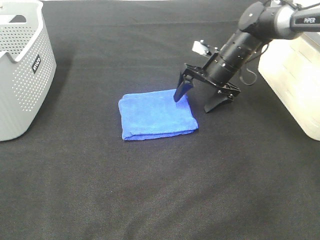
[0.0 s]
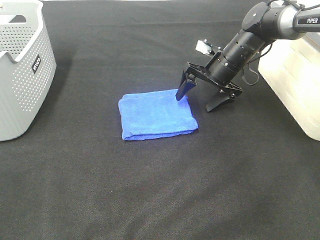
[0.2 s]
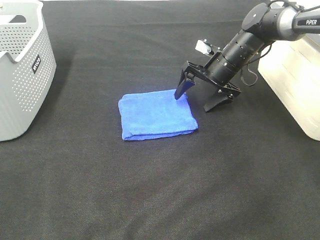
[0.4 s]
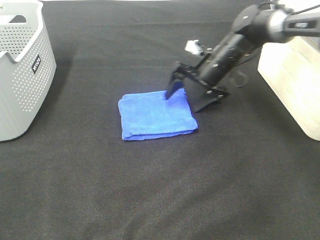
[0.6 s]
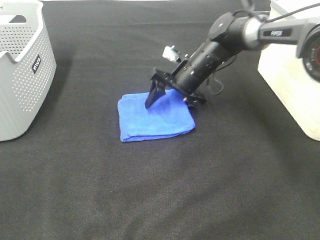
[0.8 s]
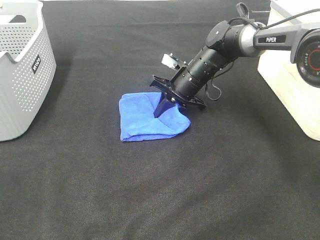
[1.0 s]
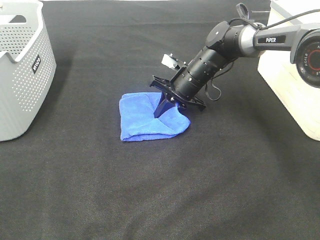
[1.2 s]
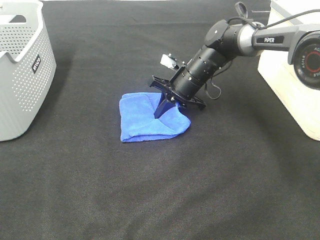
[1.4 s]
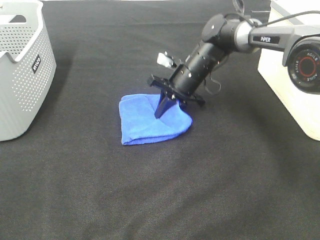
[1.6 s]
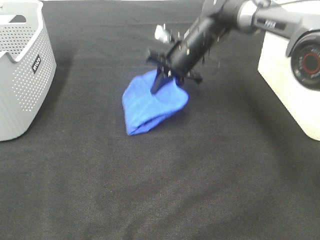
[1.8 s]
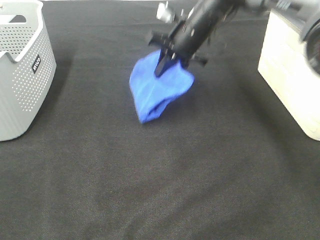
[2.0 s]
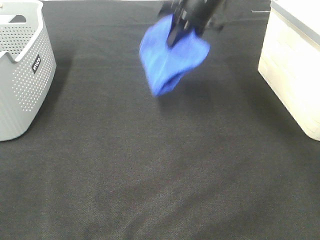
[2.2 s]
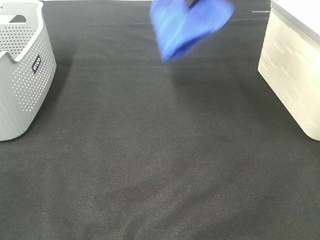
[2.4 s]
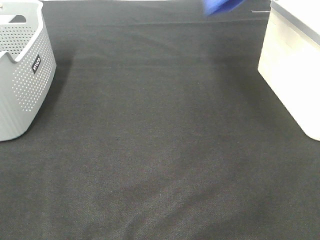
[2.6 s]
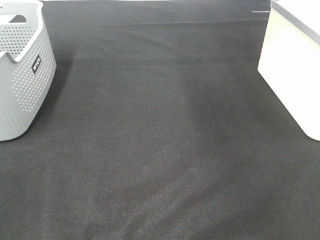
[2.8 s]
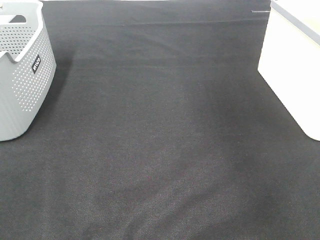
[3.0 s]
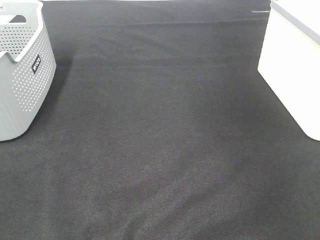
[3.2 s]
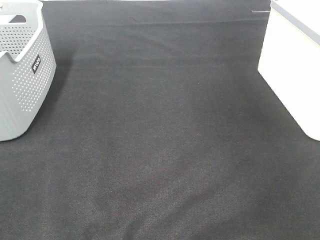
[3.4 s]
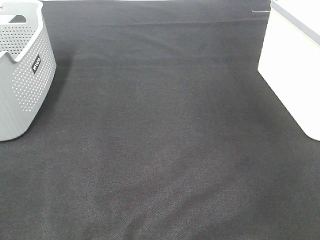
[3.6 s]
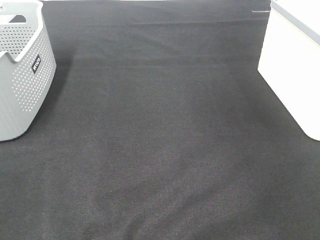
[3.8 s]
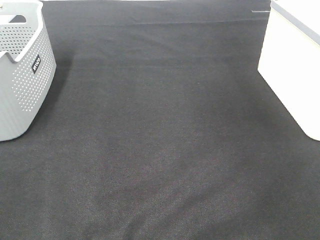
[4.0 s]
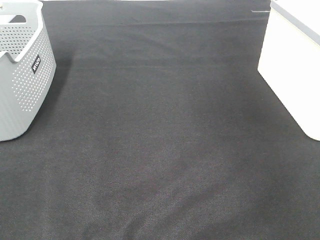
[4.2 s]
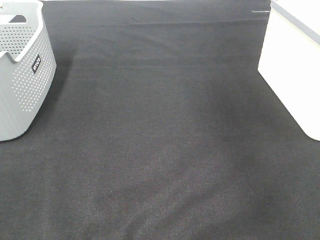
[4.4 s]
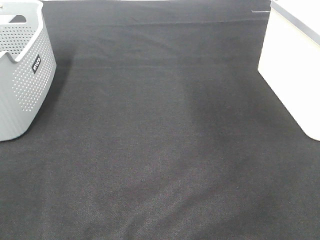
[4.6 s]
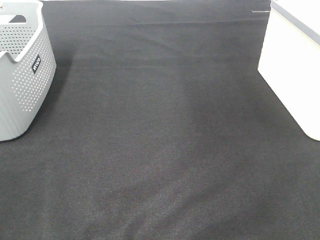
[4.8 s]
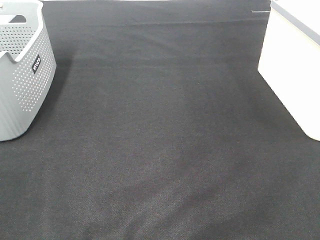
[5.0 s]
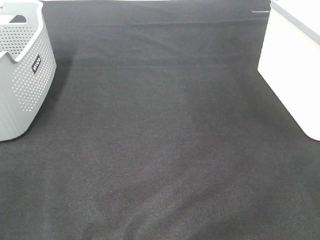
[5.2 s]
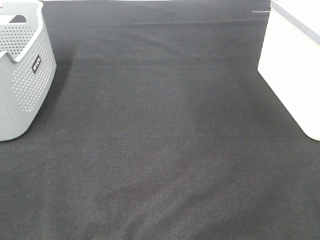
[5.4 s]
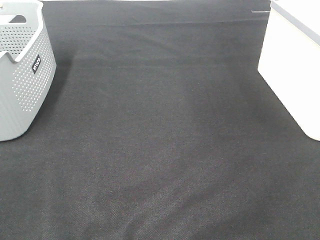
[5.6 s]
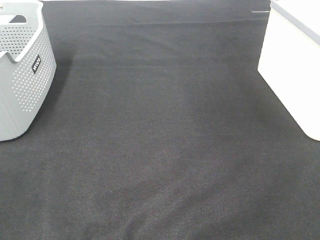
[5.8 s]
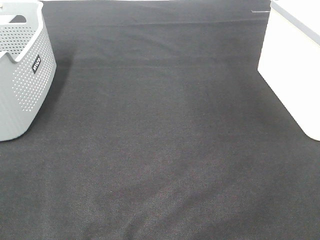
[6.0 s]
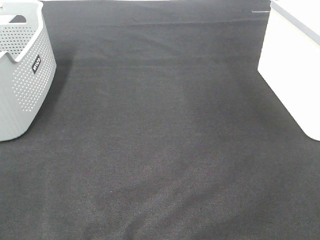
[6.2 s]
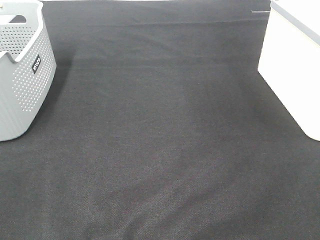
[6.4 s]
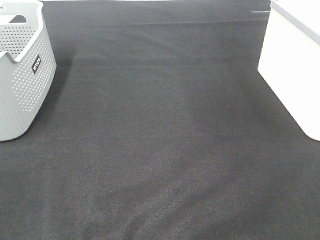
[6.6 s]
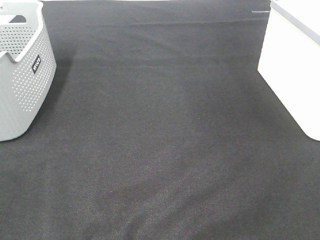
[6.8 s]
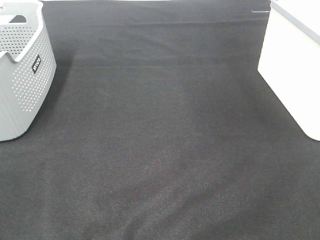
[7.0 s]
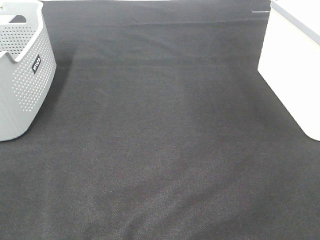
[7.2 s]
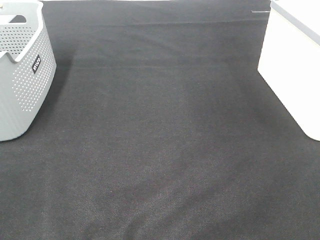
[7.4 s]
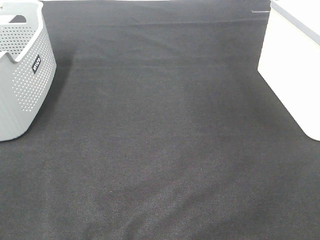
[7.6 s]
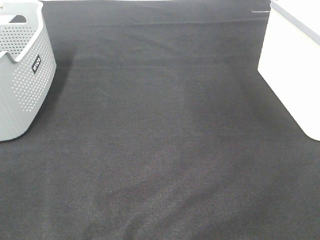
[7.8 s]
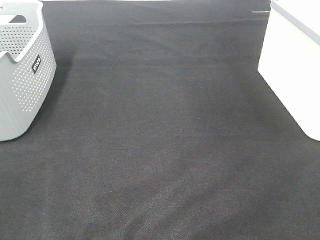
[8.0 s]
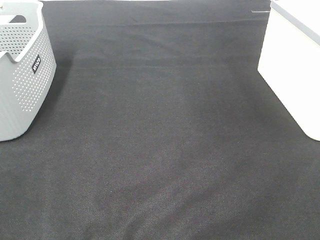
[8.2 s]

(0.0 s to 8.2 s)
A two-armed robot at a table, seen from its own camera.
Step, 1.6 s - 3.8 s: Right hand: place the blue towel in right basket.
0.0 s - 1.6 s: The right gripper moves to the left, some 10 cm, and closes its fingers.
1.6 s - 3.2 s: The right gripper is displaced to the right and upward by about 50 cm.

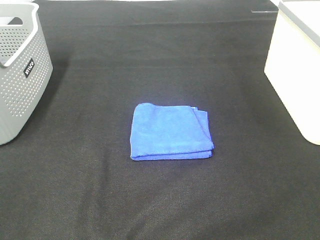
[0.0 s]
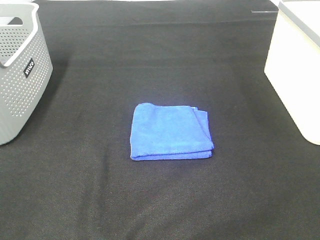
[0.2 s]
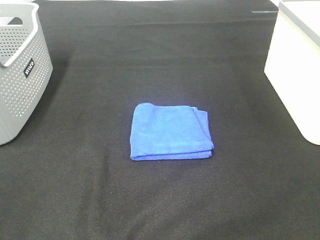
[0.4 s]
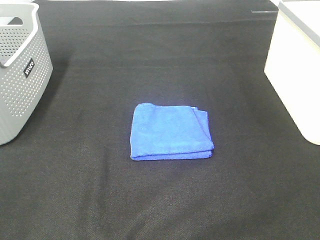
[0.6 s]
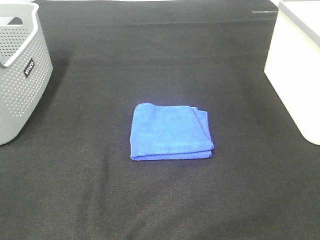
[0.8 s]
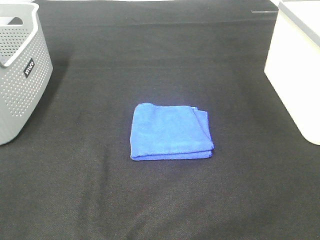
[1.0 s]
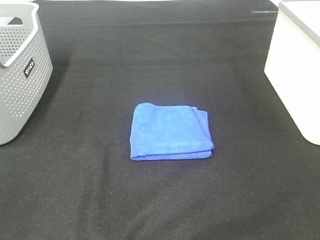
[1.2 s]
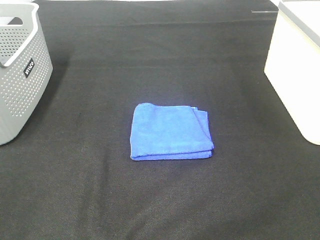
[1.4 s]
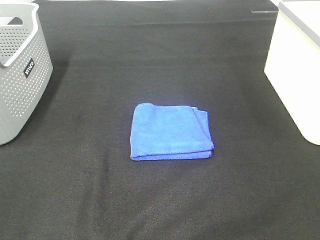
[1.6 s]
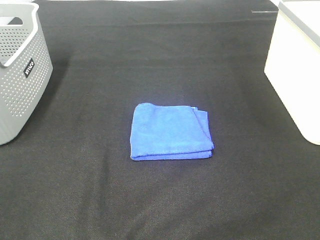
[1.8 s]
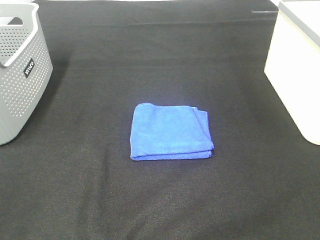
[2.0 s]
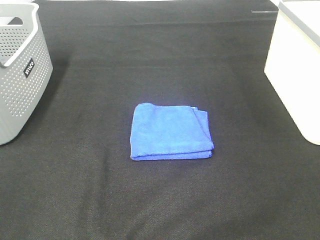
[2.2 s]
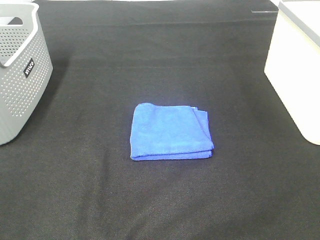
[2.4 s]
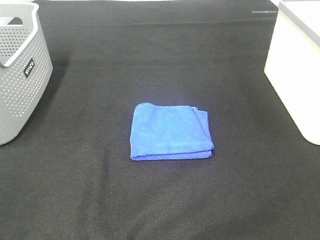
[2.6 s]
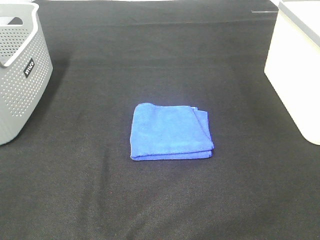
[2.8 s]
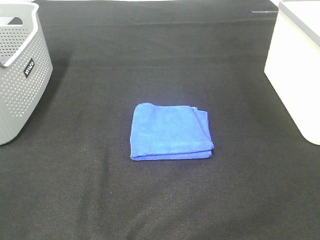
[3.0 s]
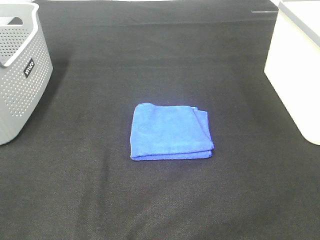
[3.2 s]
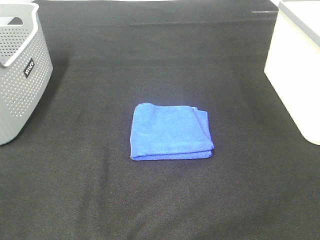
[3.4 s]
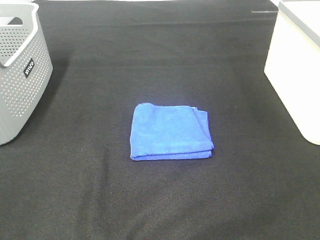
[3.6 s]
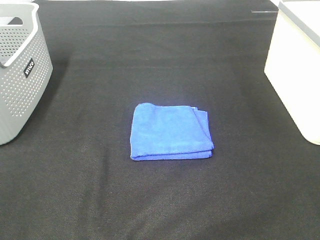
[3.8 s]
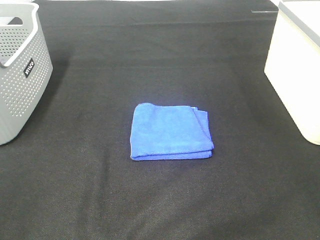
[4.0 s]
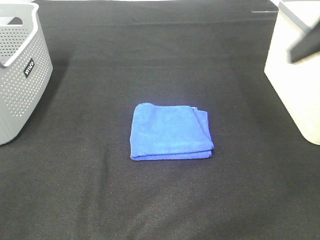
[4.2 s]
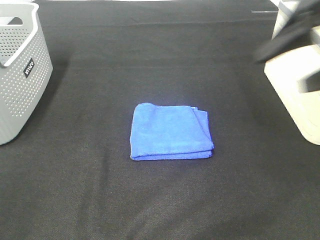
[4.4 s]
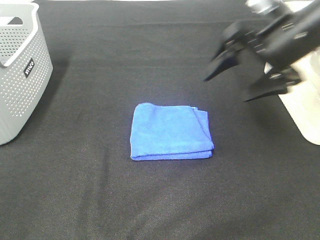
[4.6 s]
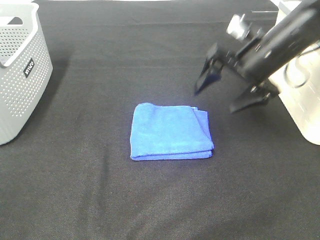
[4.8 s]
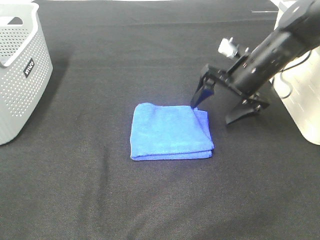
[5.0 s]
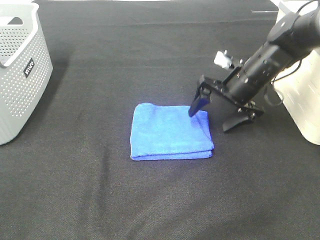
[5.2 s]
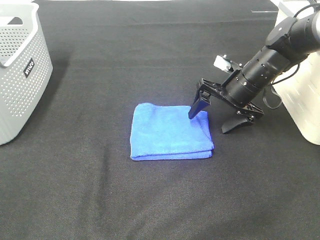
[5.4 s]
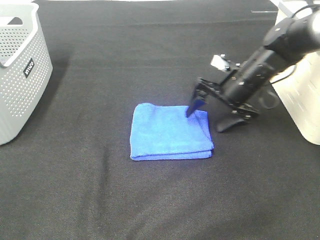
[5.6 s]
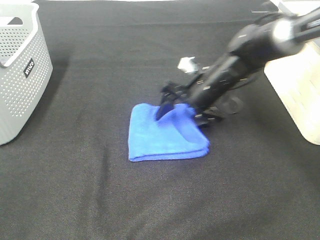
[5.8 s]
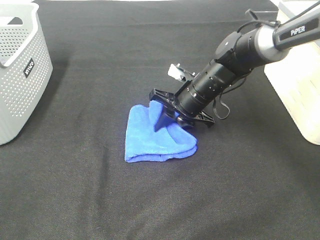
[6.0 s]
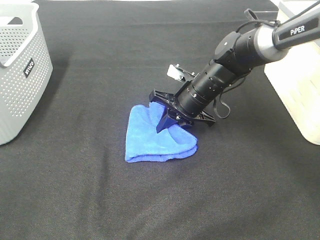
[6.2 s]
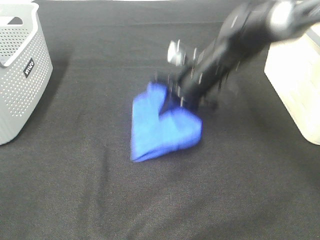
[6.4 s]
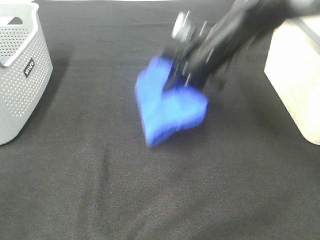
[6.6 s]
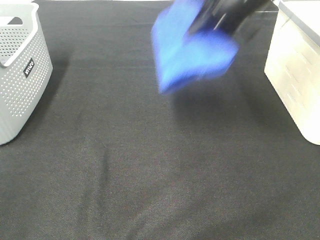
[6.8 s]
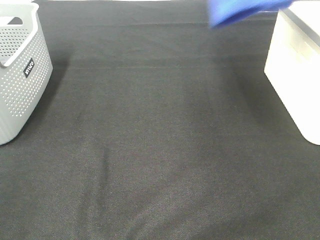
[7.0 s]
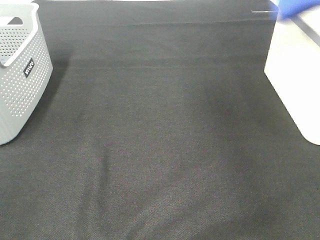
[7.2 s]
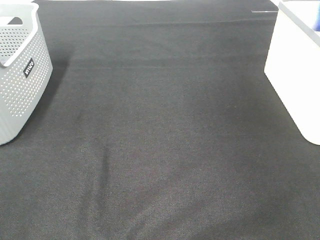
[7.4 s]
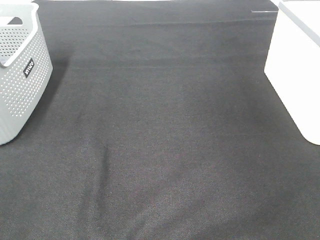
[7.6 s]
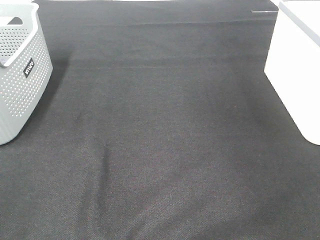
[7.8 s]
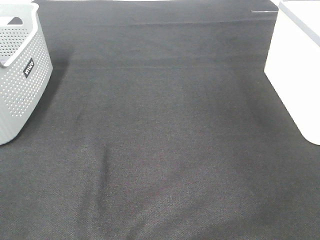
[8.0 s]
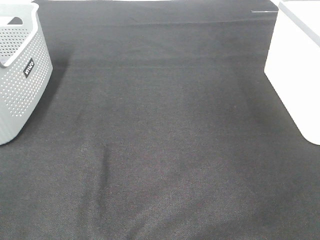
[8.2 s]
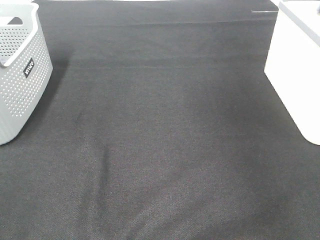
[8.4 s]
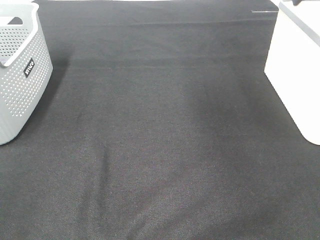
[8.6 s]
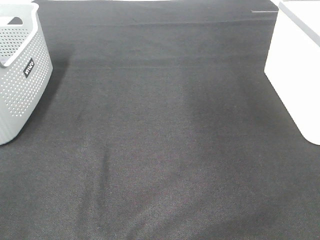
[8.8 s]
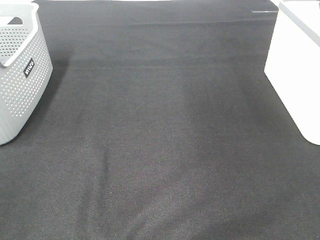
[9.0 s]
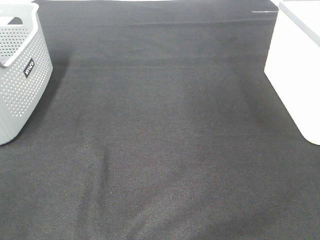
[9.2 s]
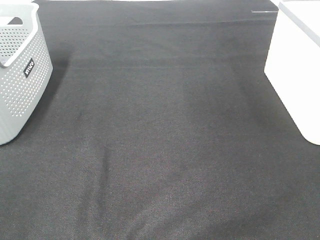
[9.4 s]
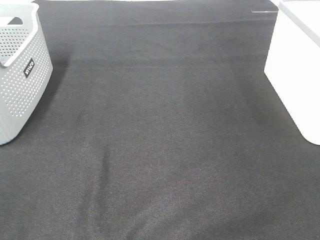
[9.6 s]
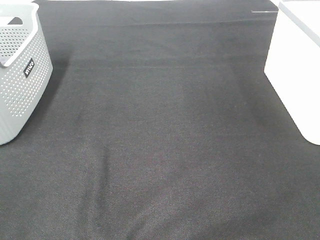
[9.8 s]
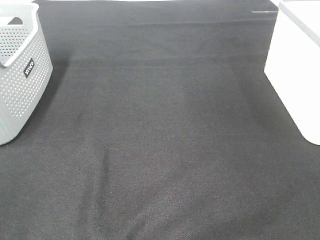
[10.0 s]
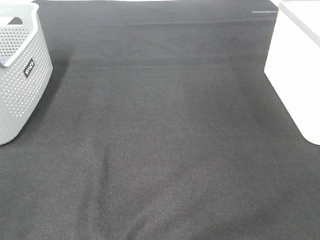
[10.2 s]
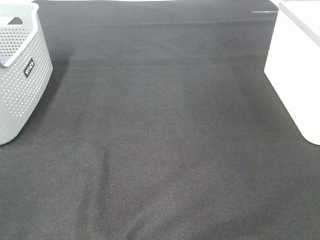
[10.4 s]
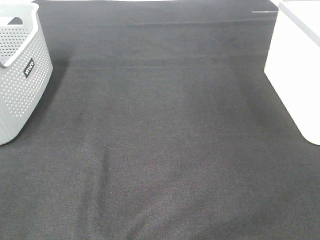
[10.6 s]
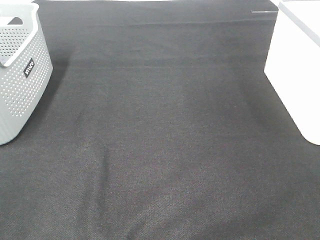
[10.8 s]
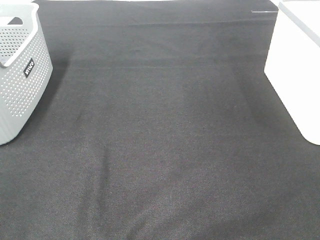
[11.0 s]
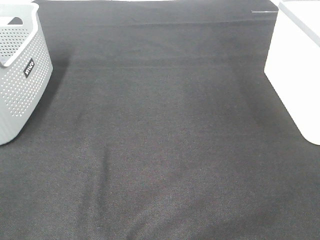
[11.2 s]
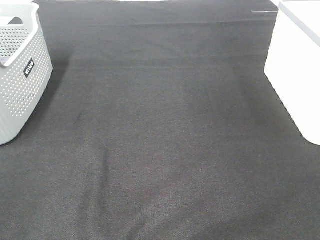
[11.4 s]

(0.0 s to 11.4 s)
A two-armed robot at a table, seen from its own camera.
Step, 0.0 s - 6.0 s: Right hand: grab the folded blue towel.
Step, 6.2 s - 8.0 s: Right hand: place the blue towel in right basket.
0.0 s - 2.8 s: Neither gripper changes place.
2.8 s - 4.2 s: The right gripper is displaced forward by about 20 cm.
4.2 s - 5.6 s: The right gripper shifts about 30 cm downward, forward and to the left.
5.6 s - 7.2 s: The right gripper travels upward and to the right by approximately 35 cm, and closes its fingers.
7.2 s - 8.6 s: The right gripper travels to the right and back again, roughly 10 cm each way, and opens up.
10.0 s - 11.4 s: The two grippers keep their place.

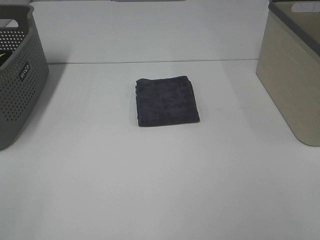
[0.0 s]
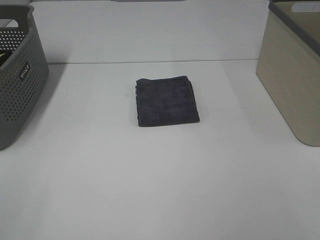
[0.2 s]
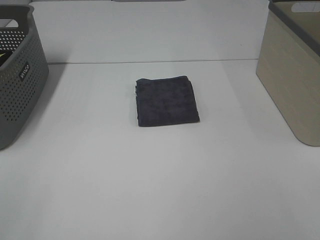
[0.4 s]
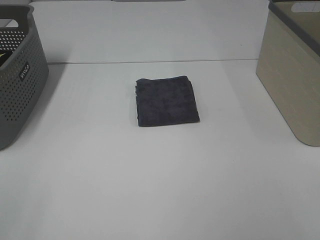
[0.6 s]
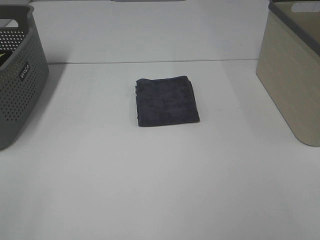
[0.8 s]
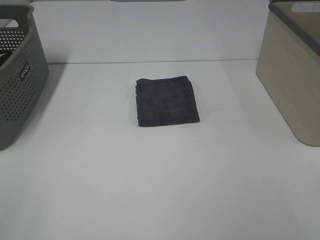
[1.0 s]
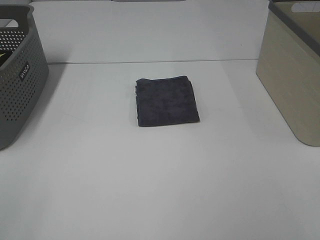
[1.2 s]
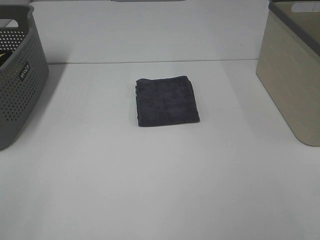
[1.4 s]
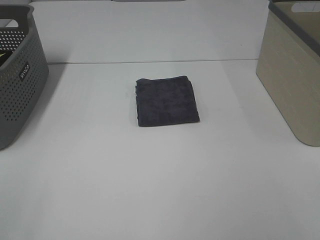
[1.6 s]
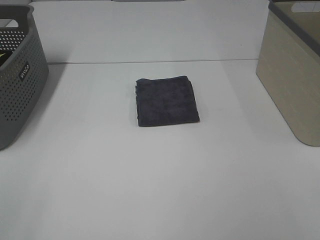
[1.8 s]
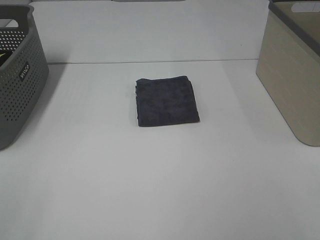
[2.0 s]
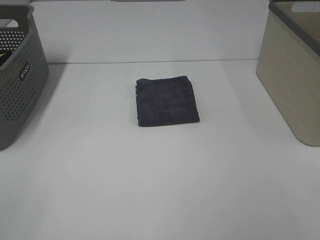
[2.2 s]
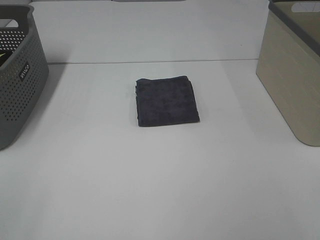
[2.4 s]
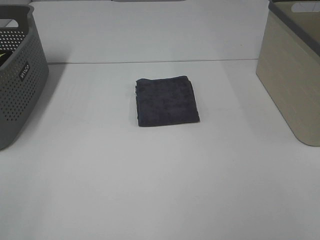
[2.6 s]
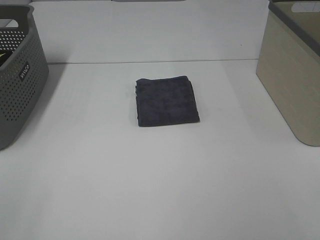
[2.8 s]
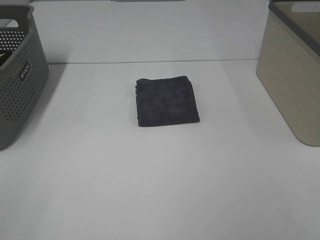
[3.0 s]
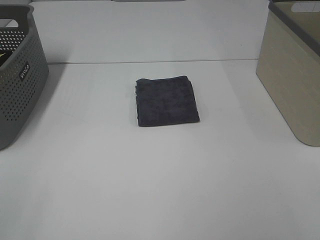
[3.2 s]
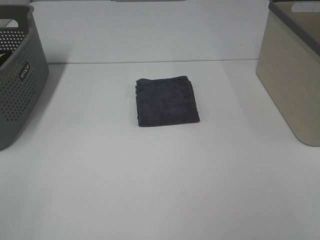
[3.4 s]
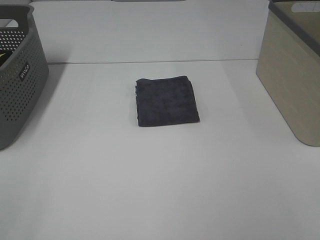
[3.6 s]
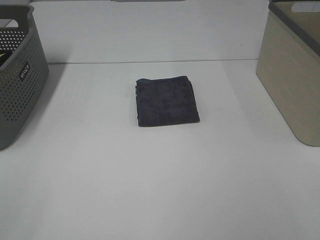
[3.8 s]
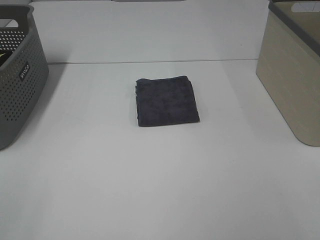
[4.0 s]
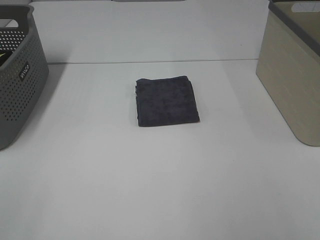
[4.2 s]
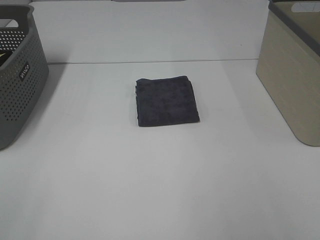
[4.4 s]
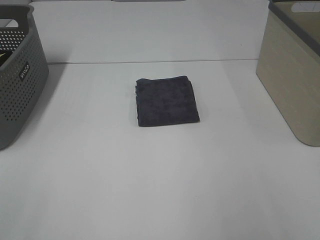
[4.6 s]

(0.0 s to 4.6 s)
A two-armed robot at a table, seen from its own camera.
0.0 s - 3.0 s: Both grippers stay about where they are.
